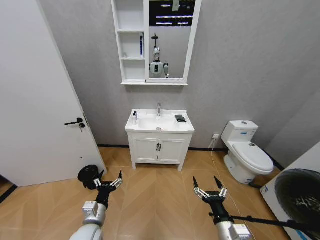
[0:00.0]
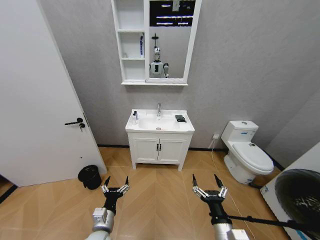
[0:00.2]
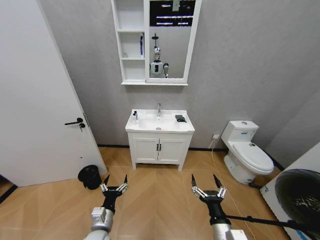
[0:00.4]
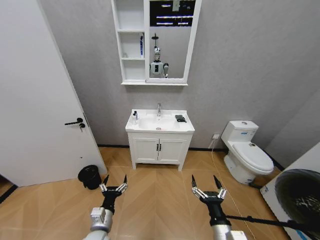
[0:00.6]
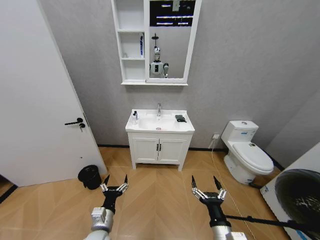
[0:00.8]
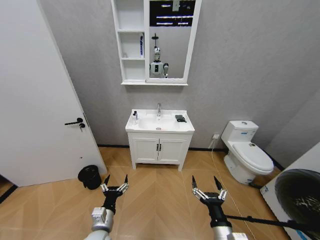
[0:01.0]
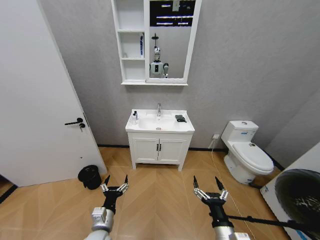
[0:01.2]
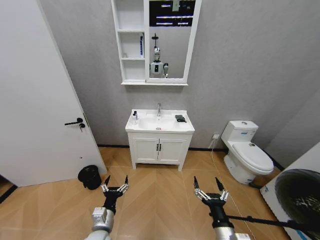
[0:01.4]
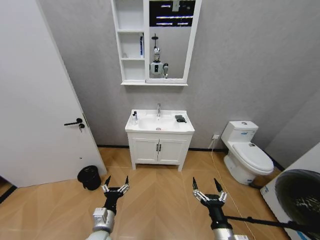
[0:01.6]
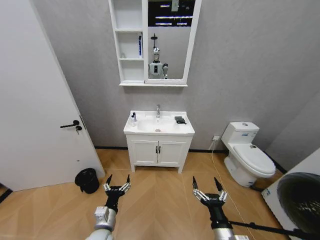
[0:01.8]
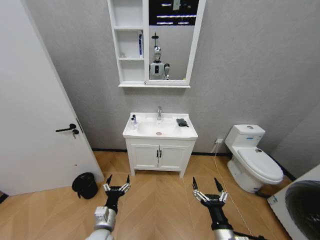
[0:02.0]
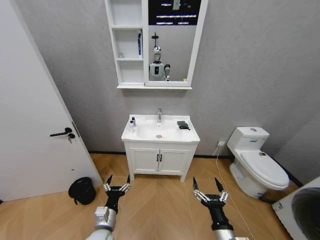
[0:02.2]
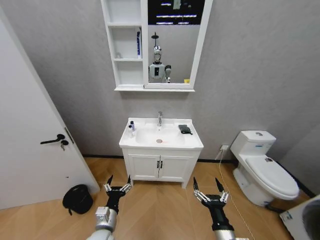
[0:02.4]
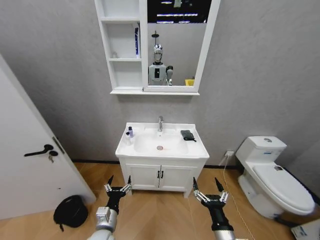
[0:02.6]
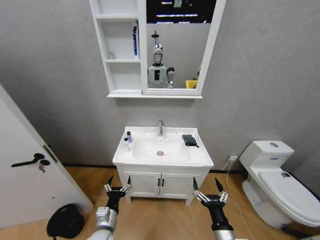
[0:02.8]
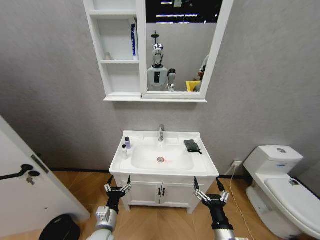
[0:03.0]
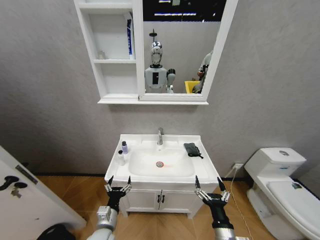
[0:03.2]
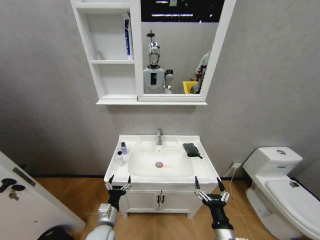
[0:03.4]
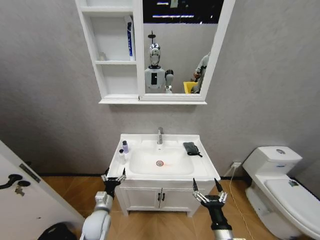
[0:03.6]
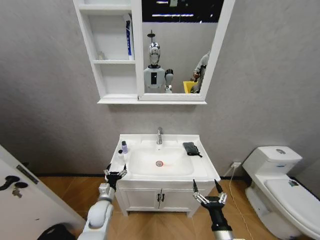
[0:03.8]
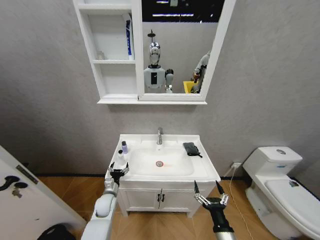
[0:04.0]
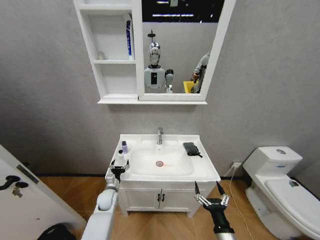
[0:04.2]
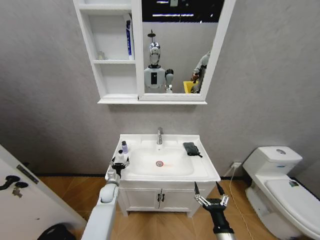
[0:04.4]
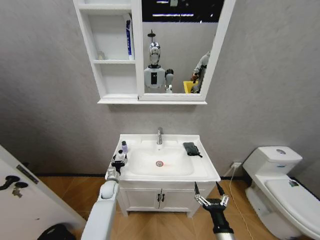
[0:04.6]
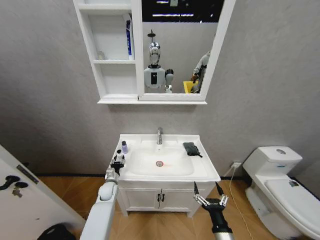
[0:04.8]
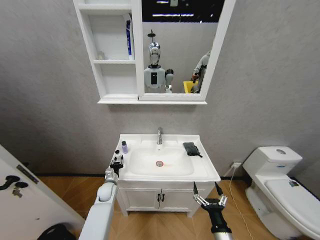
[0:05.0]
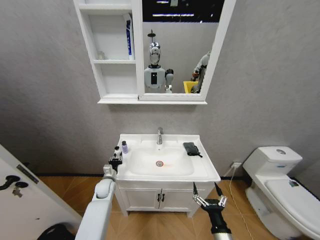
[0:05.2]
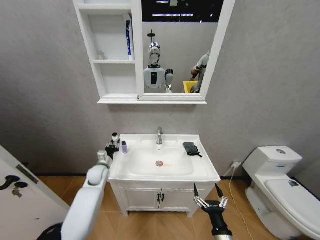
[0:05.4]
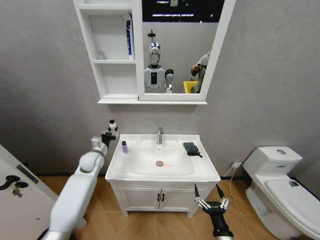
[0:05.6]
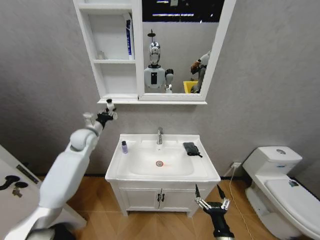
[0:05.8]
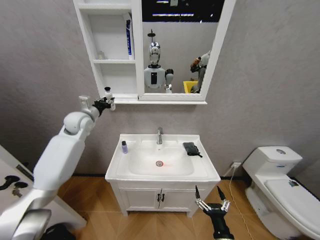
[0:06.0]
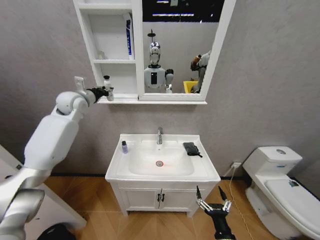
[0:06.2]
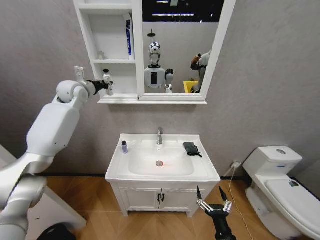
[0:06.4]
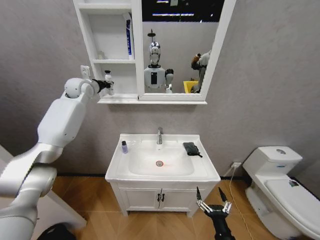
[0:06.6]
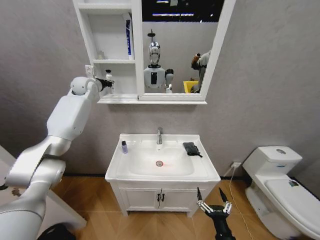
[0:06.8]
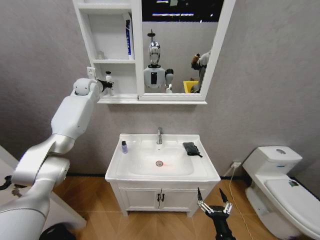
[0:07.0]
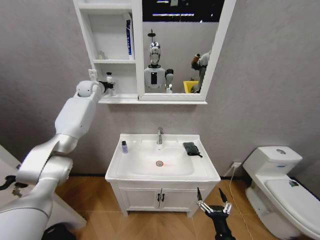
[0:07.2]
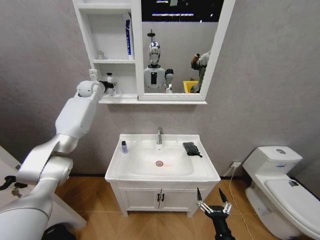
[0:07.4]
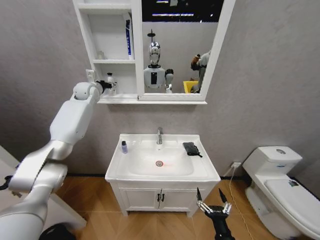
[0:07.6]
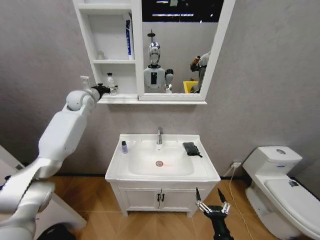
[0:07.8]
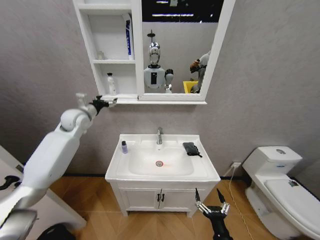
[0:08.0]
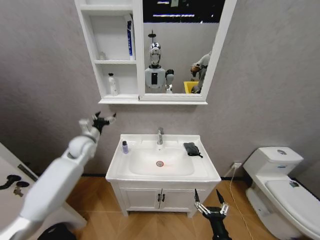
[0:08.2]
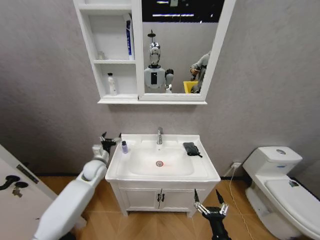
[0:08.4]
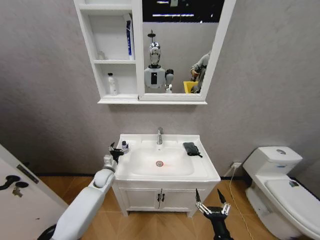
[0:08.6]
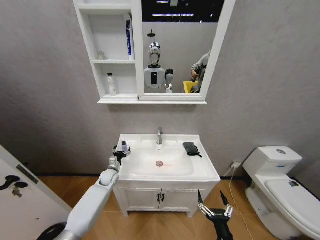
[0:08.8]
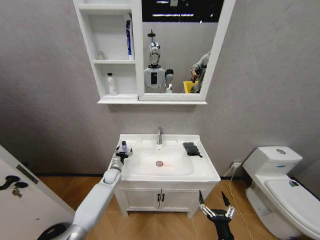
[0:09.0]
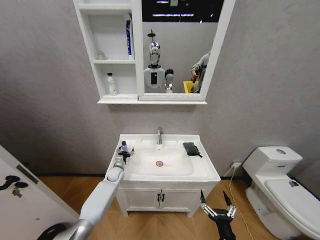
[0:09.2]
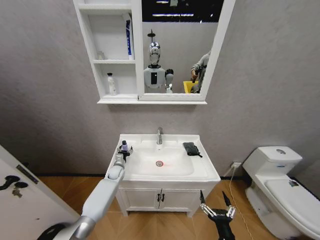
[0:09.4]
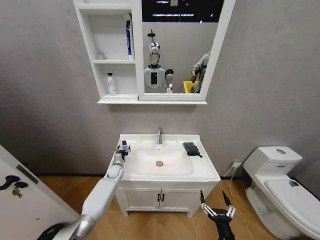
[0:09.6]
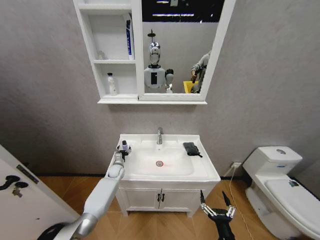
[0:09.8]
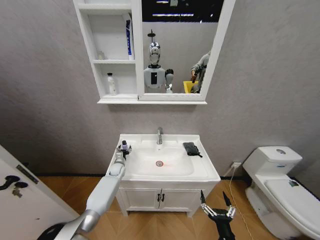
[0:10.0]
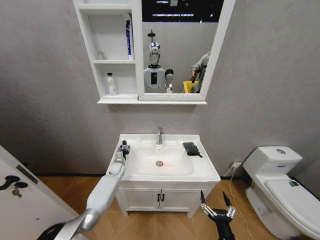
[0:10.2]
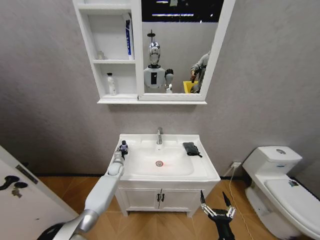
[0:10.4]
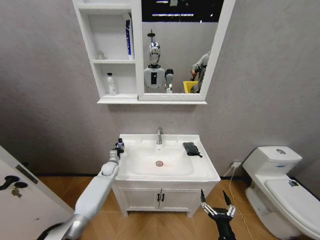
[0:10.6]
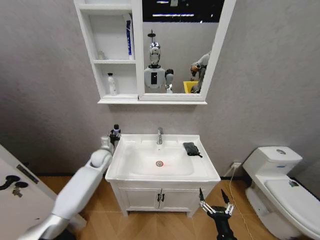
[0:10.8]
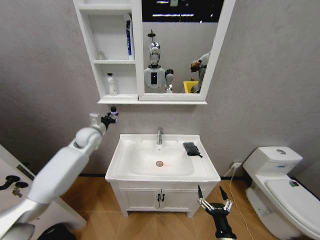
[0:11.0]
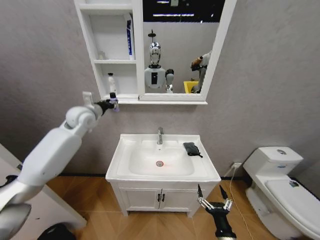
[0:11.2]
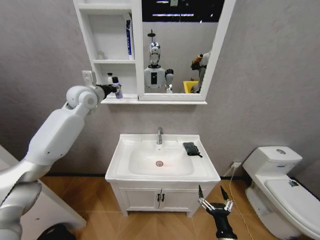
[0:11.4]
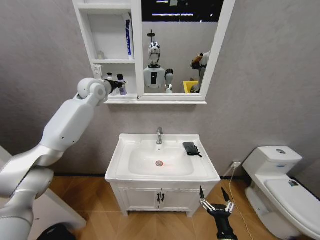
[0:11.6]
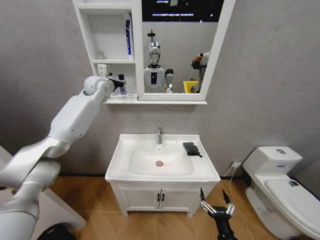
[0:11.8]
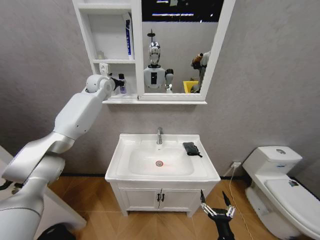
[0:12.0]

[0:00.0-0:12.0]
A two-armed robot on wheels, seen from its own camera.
Task of the whole recording: Move facial cleanser and shampoo from washbasin to cabinet, then wipe washbasin with towel.
0:03.0 to 0:04.4: The left gripper is displaced forward by approximately 20 cm.
0:04.4 to 0:06.0: The left gripper heads upward, covering about 40 cm, and closes.
0:06.0 to 0:07.6: The left gripper travels forward and upward by approximately 15 cm, and opens.
0:07.6 to 0:09.0: The left gripper moves downward, some 40 cm.
0:09.0 to 0:10.4: The left gripper closes its fingers.
0:10.4 to 0:12.0: The left gripper moves upward, some 50 cm.

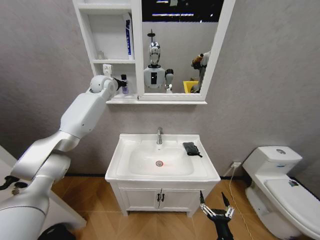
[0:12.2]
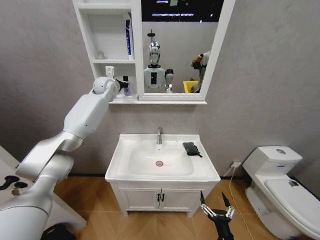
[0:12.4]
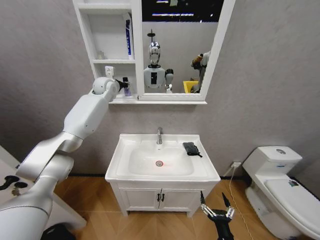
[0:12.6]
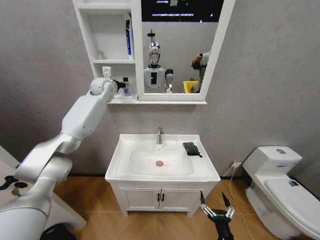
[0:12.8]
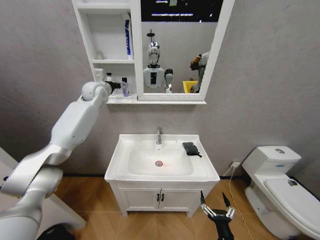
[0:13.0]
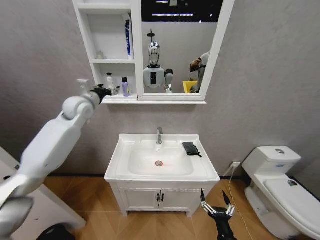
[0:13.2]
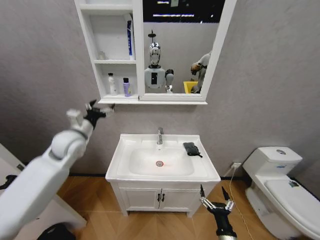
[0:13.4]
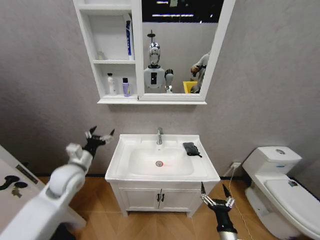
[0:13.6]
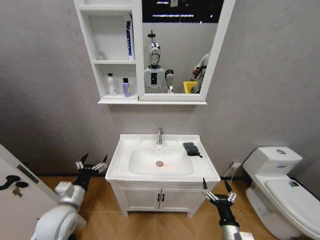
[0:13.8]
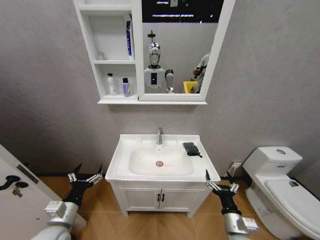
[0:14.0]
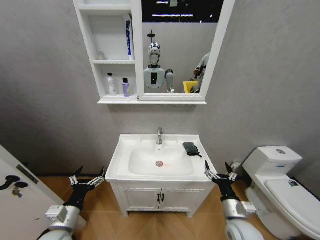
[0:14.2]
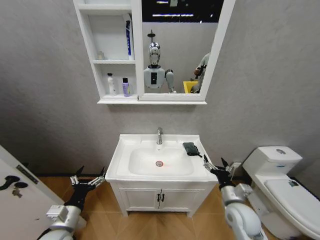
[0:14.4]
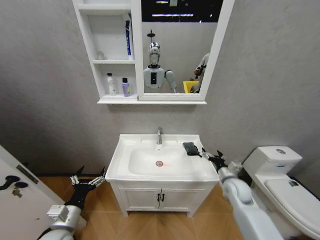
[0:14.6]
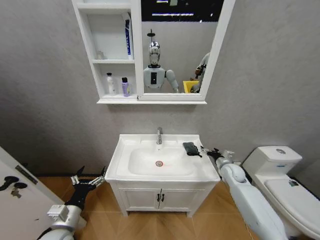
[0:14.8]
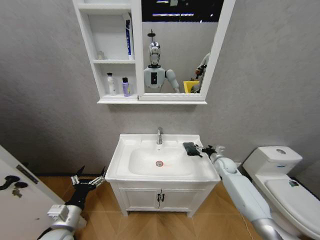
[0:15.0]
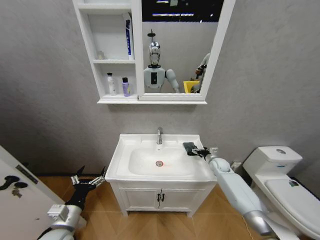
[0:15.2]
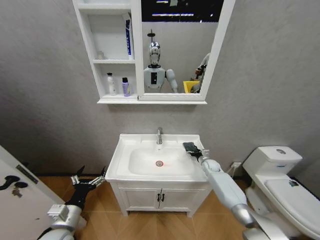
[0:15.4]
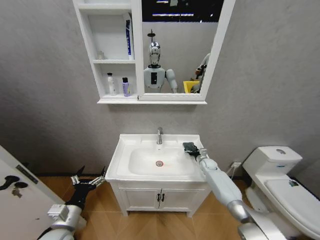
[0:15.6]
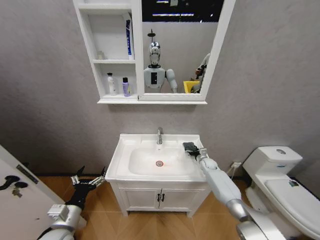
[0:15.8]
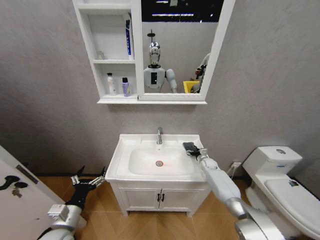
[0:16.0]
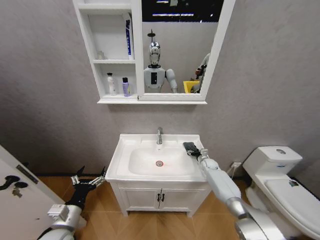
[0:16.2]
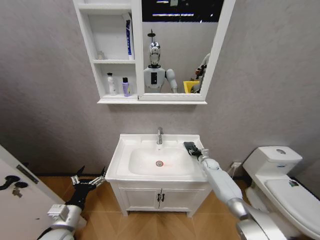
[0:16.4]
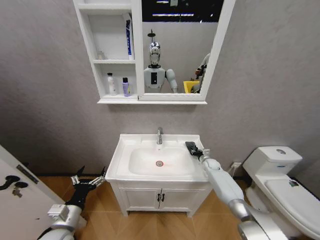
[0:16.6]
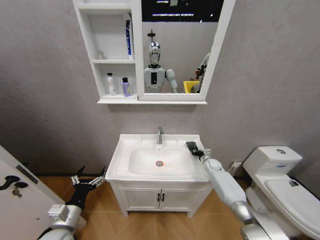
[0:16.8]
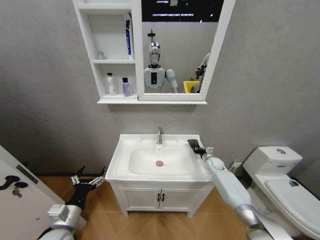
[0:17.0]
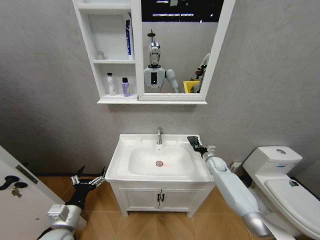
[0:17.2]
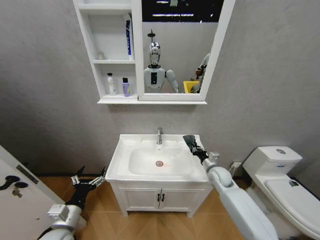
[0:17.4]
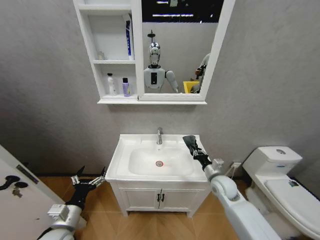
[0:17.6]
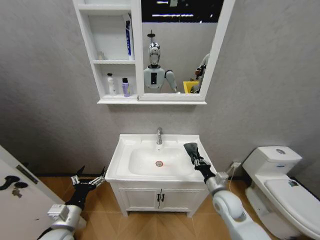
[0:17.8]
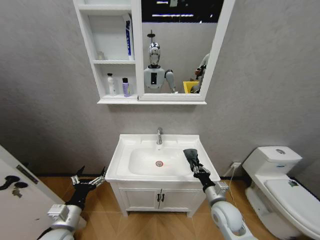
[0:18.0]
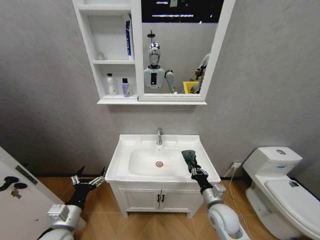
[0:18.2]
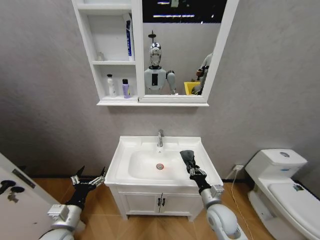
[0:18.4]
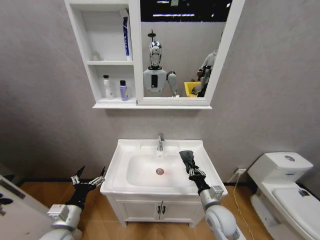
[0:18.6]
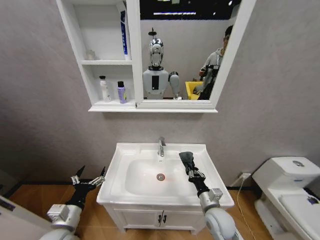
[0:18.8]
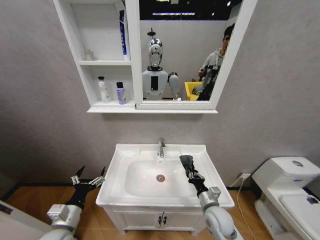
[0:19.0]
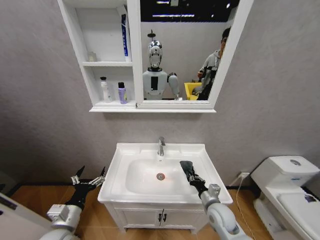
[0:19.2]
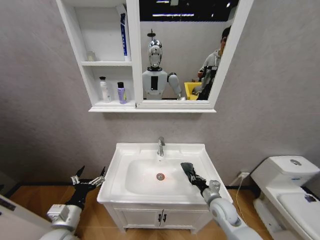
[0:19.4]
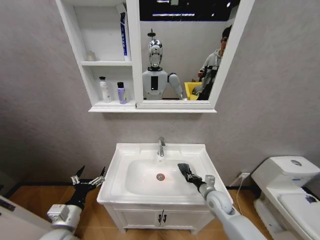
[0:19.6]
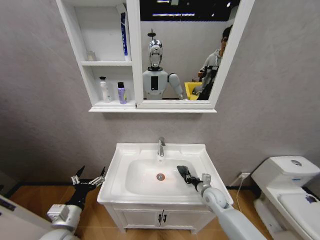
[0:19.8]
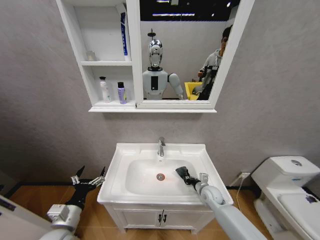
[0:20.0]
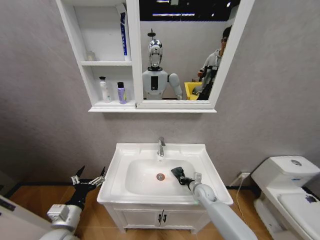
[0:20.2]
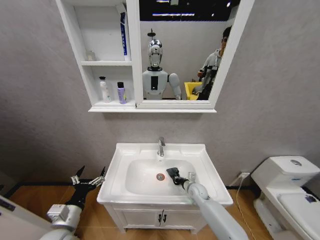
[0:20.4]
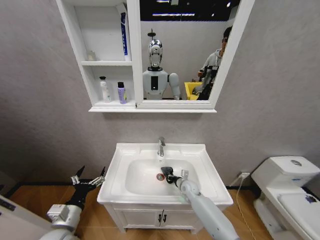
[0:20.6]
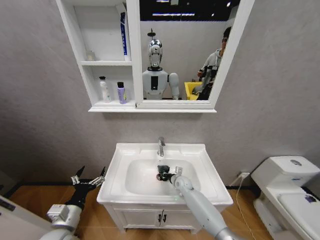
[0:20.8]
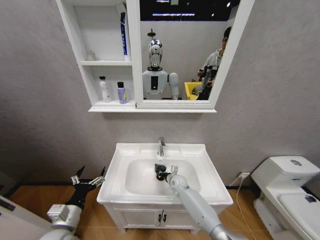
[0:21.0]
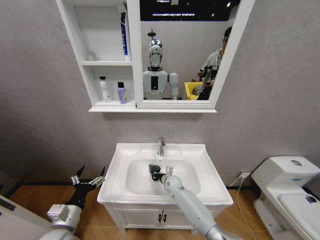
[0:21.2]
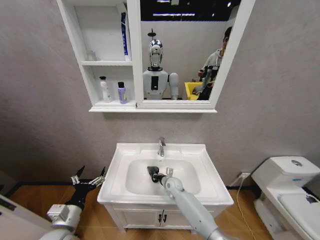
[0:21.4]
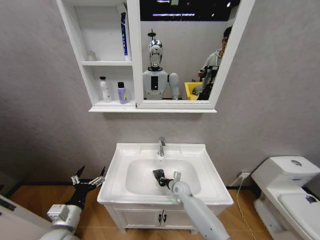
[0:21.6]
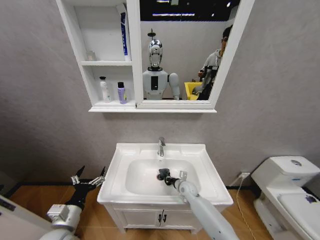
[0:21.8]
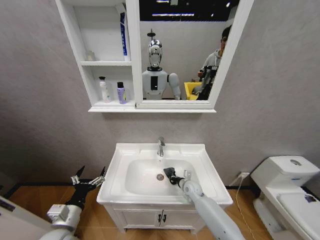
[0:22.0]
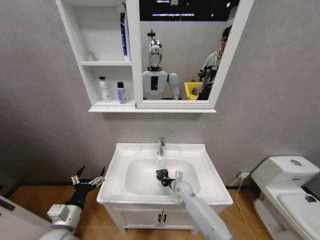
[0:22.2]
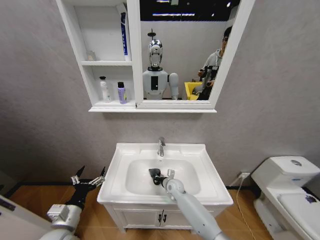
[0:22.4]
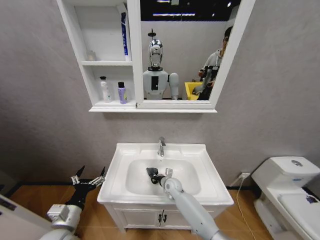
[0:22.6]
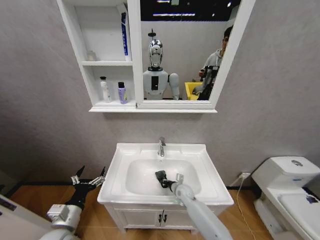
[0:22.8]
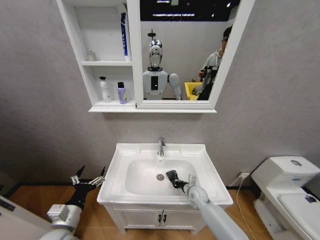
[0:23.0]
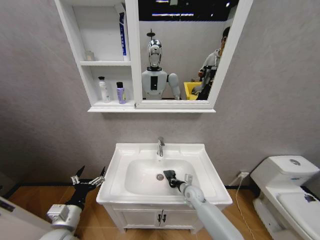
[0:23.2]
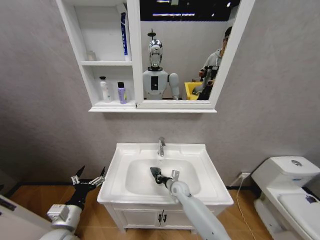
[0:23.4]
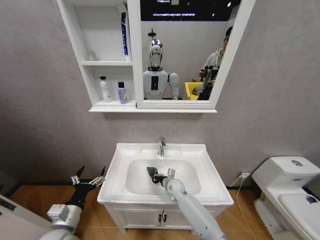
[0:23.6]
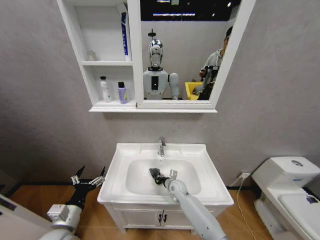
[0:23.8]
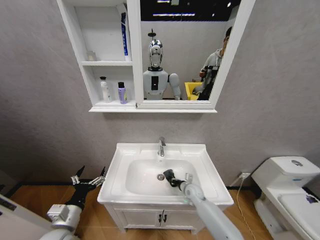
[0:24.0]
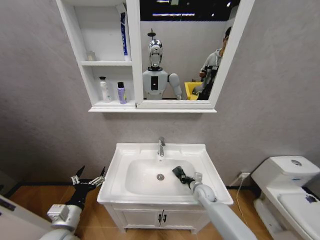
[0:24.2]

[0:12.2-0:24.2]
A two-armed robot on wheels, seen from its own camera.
Task of the whole recording: Move facial cleanser and shampoo from washbasin to cabinet, then wipe washbasin with towel.
0:12.2 to 0:13.8: The right gripper moves approximately 5 cm. Meanwhile the left gripper moves backward and downward, approximately 50 cm, and opens up.
0:13.8 to 0:15.2: The left gripper shifts some 5 cm backward, while the right gripper travels forward by about 35 cm.
0:15.2 to 0:16.6: The right gripper ends up some 5 cm from where it was, and closes up.
0:16.6 to 0:18.2: The right gripper heads backward and to the left, covering approximately 30 cm.
0:18.2 to 0:19.8: The right gripper shifts approximately 10 cm forward.
0:19.8 to 0:21.2: The right gripper travels to the left and forward by roughly 20 cm.
0:21.2 to 0:22.6: The right gripper moves approximately 10 cm to the right and comes back.
0:22.6 to 0:24.2: The right gripper swings left and right, some 15 cm each way, with 2 reversals.
